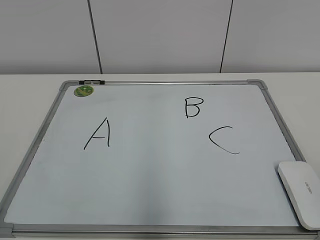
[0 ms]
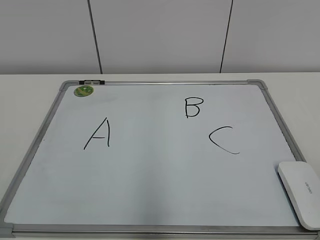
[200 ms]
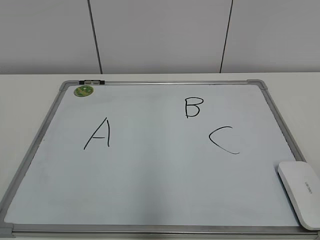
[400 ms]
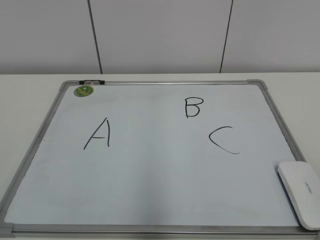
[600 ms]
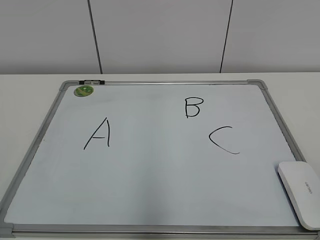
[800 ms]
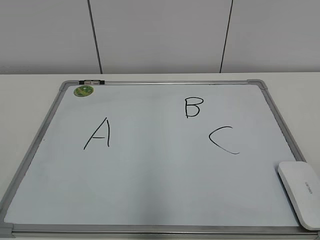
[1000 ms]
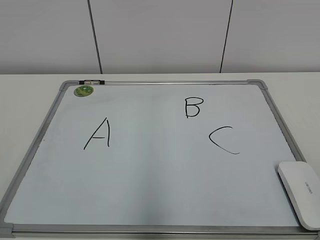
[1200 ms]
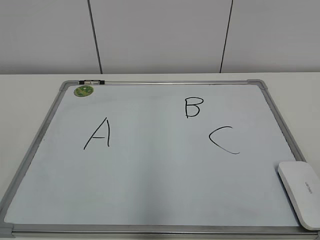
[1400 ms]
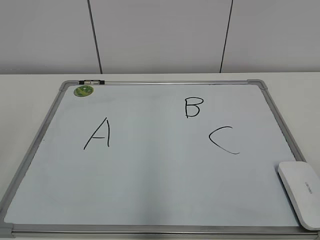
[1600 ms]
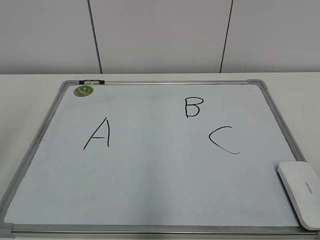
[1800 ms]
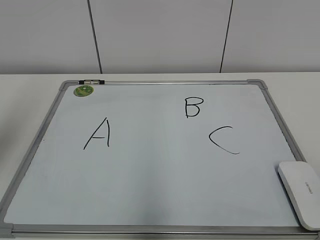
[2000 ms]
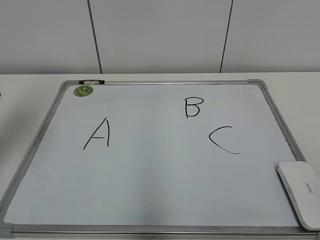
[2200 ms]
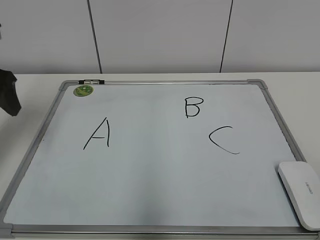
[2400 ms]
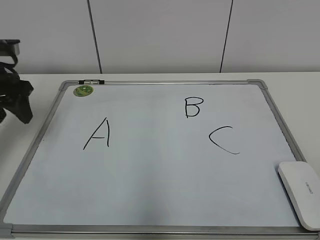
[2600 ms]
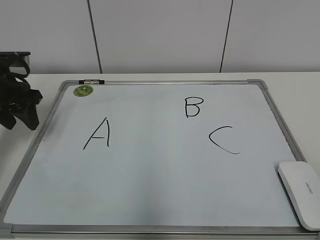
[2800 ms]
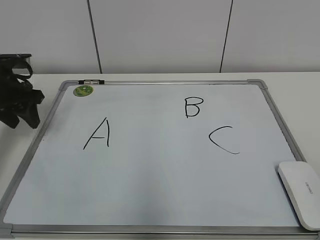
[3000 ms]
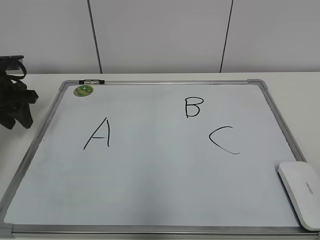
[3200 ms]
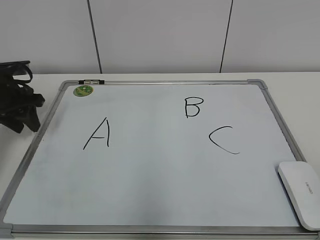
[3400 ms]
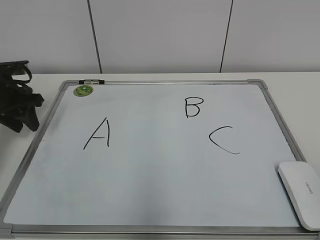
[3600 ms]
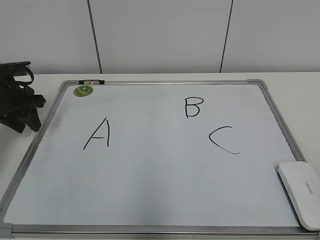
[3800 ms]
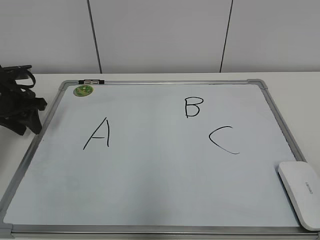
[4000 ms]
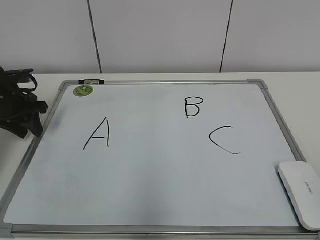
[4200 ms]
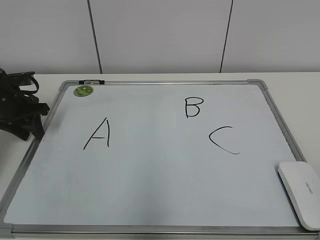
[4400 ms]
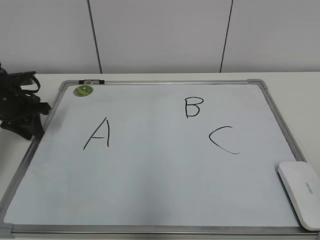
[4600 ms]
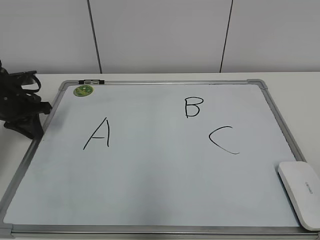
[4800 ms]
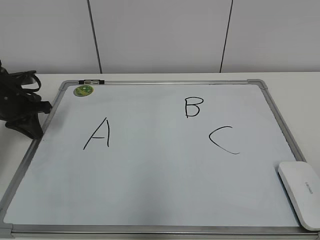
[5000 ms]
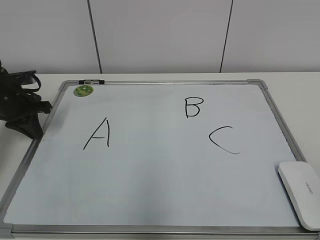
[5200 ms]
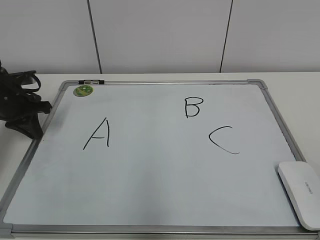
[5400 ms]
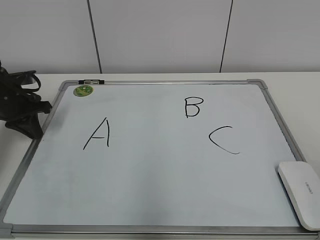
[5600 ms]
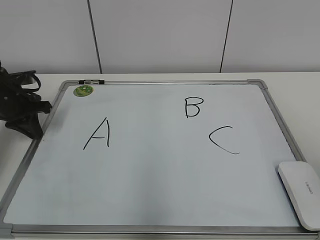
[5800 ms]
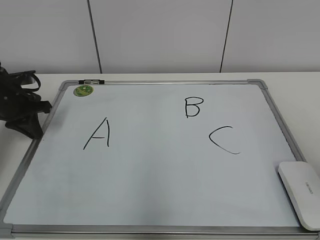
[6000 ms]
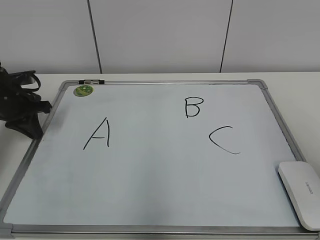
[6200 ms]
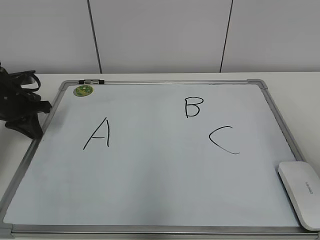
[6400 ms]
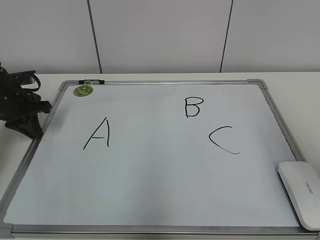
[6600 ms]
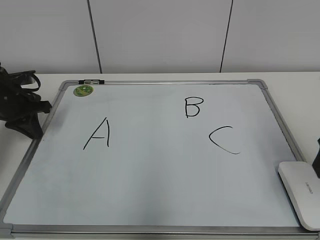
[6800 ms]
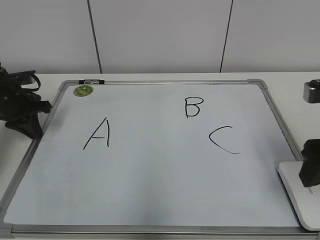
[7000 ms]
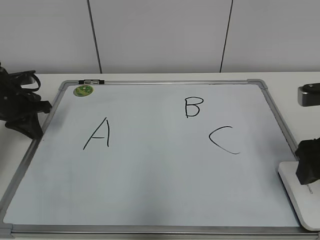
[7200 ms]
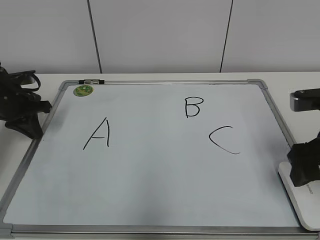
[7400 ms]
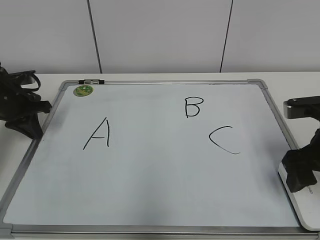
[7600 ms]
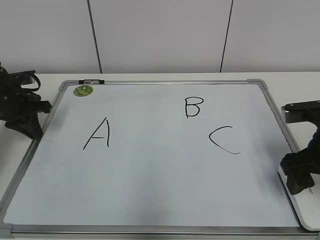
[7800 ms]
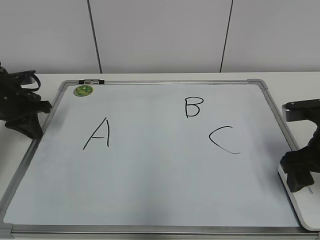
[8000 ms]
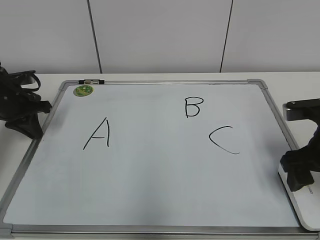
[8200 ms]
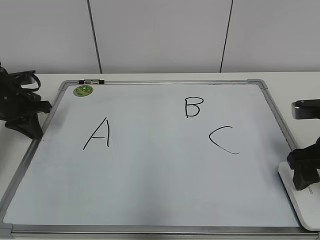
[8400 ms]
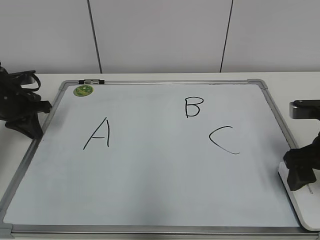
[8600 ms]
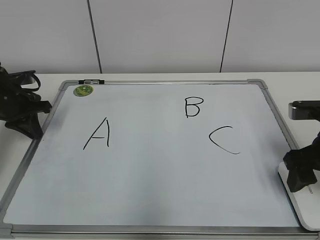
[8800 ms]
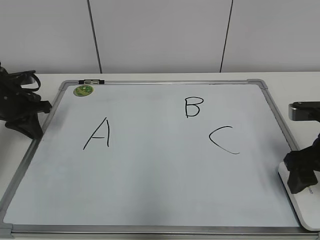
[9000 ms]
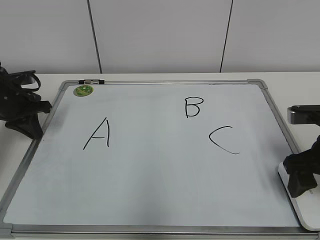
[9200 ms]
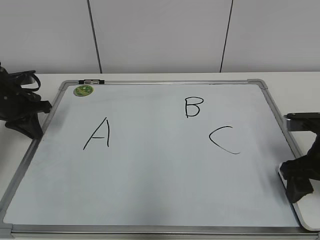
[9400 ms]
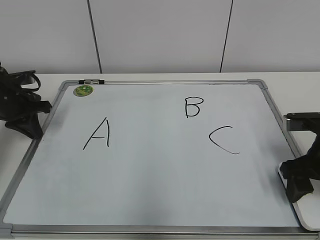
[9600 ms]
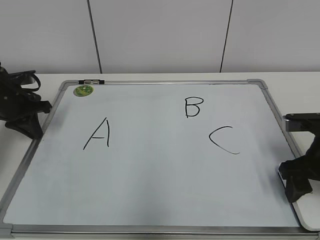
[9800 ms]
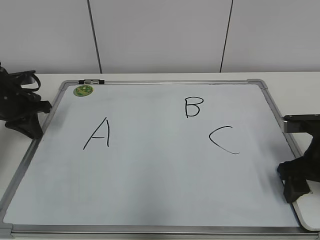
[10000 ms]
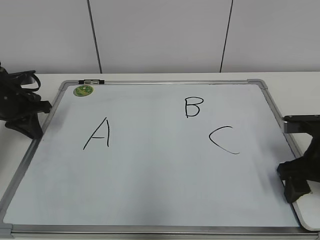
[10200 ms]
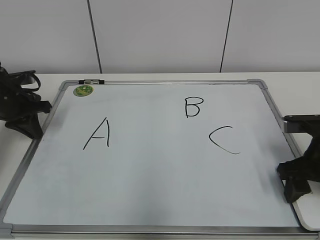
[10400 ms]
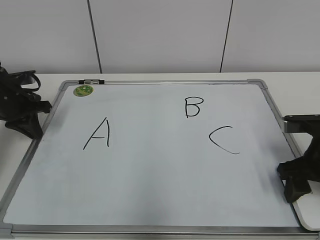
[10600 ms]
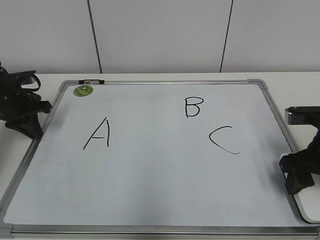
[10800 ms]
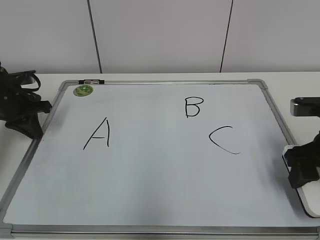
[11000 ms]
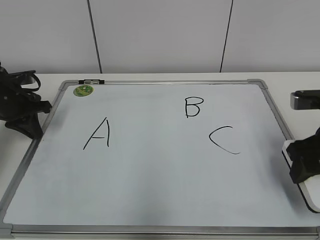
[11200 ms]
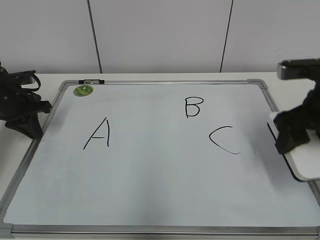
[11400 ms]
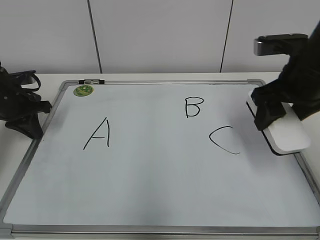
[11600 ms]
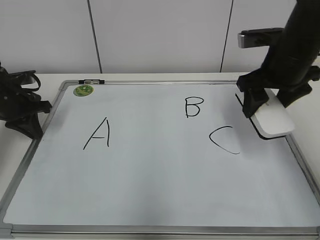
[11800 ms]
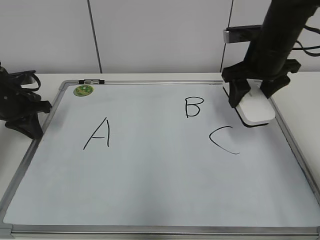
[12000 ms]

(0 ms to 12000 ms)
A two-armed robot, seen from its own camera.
Task of the whole recording: pick up the eraser on the blackboard and erase the letter "B".
Step, 0 ms - 5600 ms: Hold the drawing board steady with your left hand.
Step, 5800 ms - 10200 ms: Grab the eraser with your right hand.
1600 ms - 3000 ms: The left gripper goes about 35 cm forward and downward, and closes its fingers.
3000 ms - 4400 ms: The left gripper shifts approximately 5 cm downward.
4400 ms - 6000 ms: The left gripper closes its fingers.
6000 ms - 7600 ms: The right gripper goes approximately 20 cm downward and forward, and opens up.
7600 ms - 9000 ms: The grippers stay close to where they were, moving slightly.
9000 ms - 10400 ms: The right gripper closes its fingers.
10400 ms - 12000 ms: The right gripper travels forward, upward and to the left by about 20 cm.

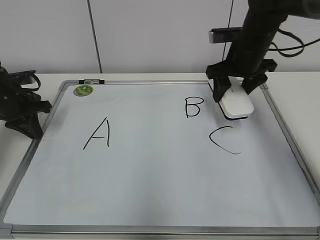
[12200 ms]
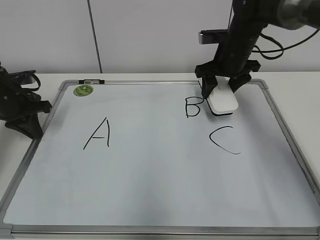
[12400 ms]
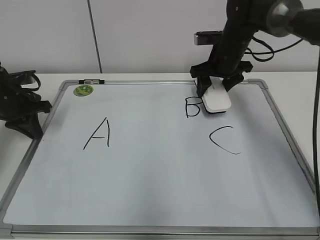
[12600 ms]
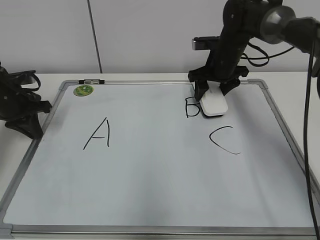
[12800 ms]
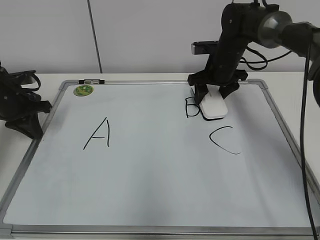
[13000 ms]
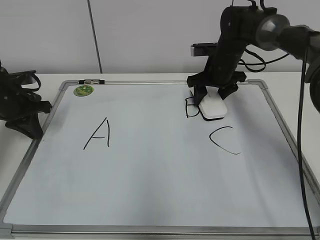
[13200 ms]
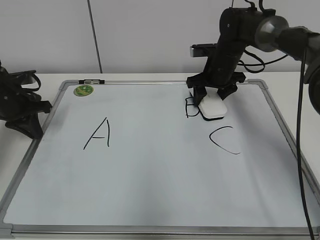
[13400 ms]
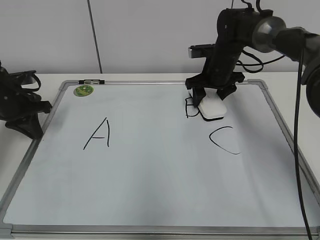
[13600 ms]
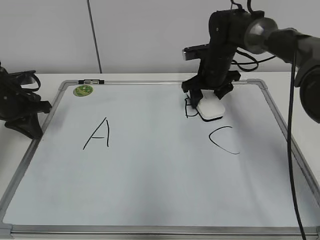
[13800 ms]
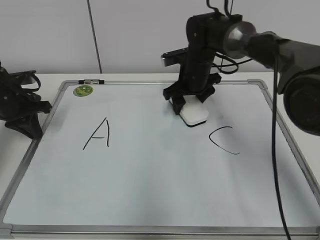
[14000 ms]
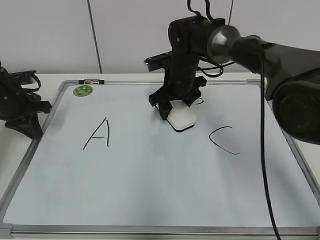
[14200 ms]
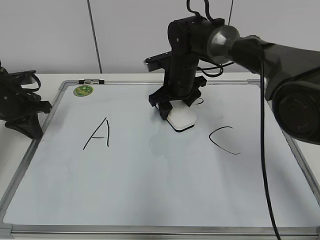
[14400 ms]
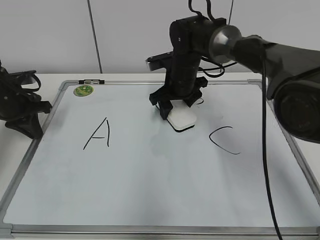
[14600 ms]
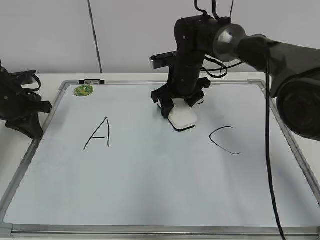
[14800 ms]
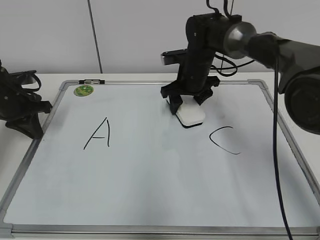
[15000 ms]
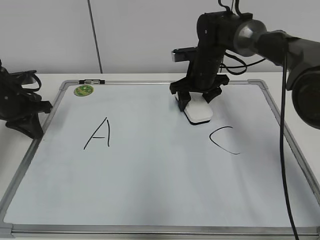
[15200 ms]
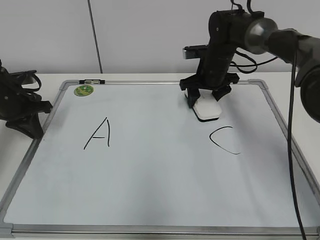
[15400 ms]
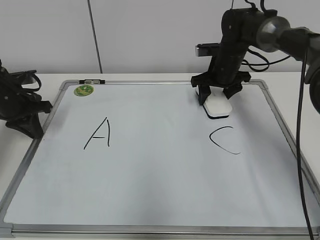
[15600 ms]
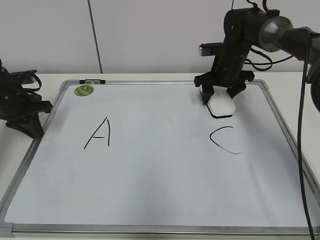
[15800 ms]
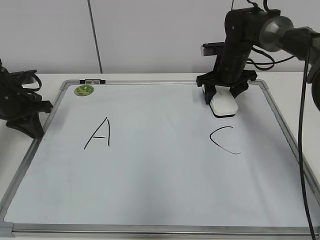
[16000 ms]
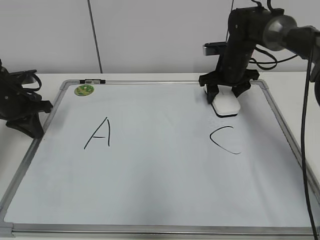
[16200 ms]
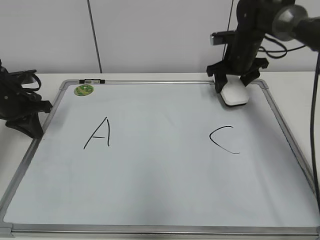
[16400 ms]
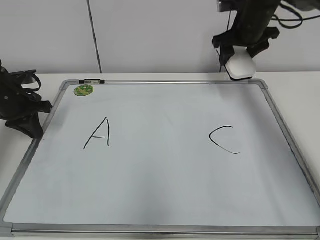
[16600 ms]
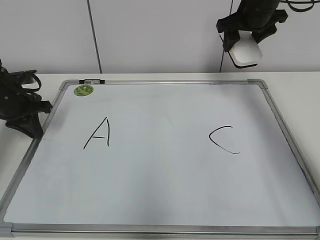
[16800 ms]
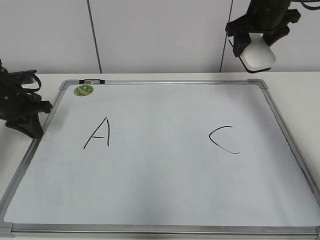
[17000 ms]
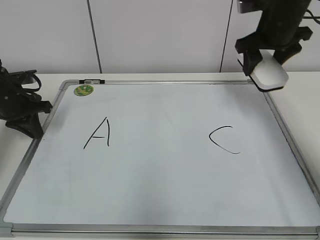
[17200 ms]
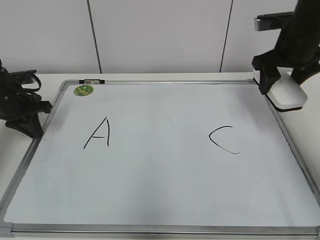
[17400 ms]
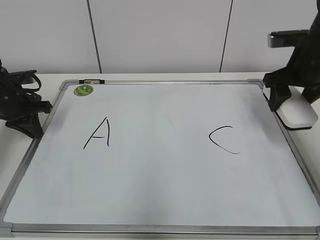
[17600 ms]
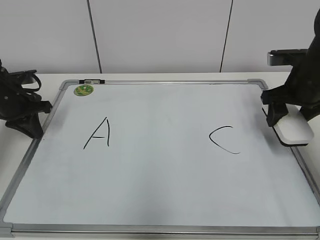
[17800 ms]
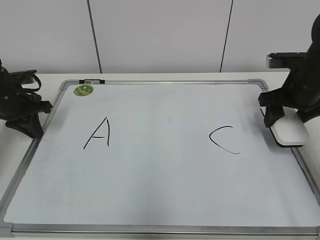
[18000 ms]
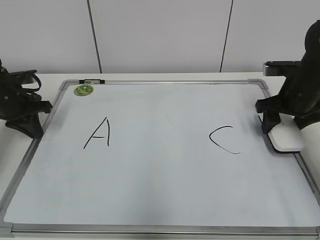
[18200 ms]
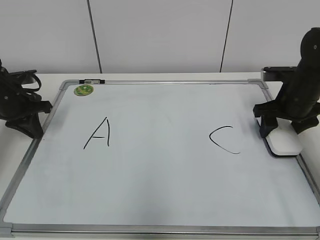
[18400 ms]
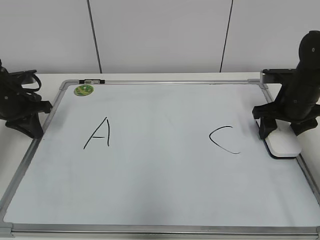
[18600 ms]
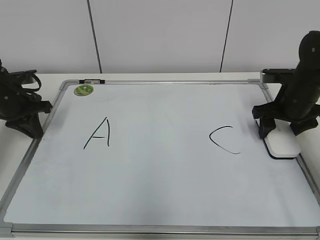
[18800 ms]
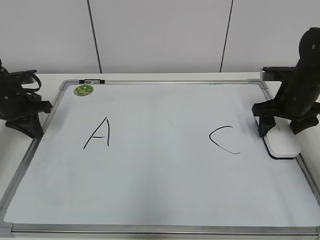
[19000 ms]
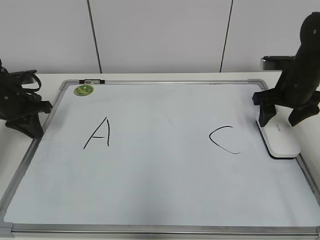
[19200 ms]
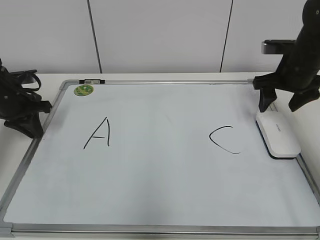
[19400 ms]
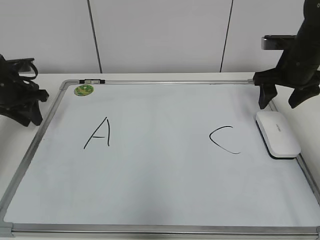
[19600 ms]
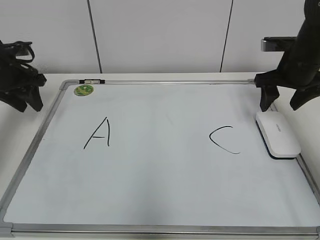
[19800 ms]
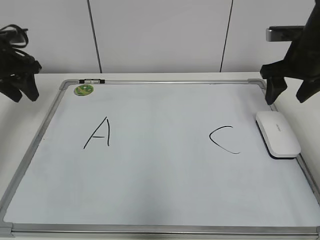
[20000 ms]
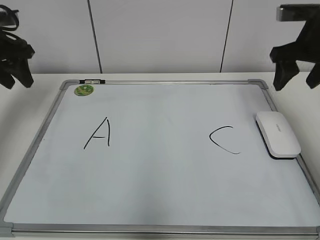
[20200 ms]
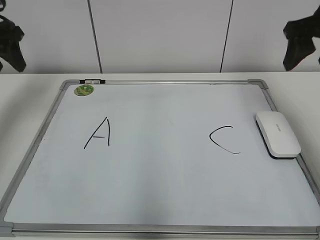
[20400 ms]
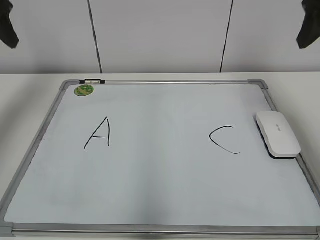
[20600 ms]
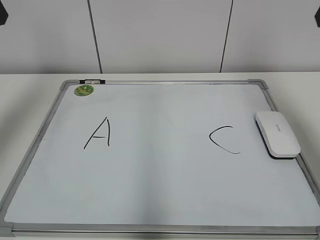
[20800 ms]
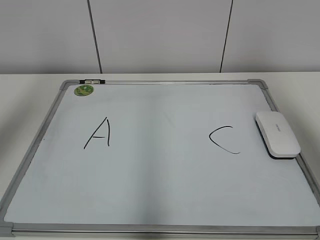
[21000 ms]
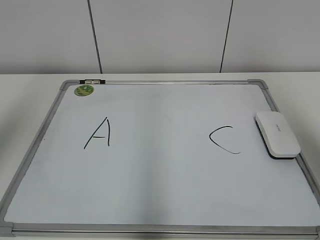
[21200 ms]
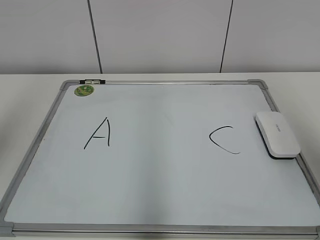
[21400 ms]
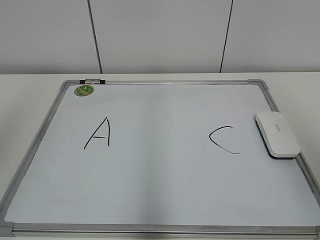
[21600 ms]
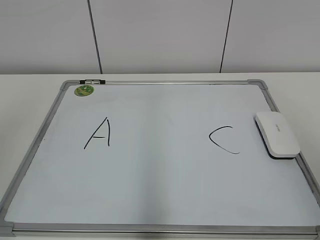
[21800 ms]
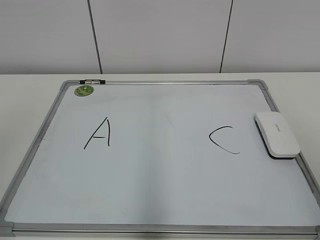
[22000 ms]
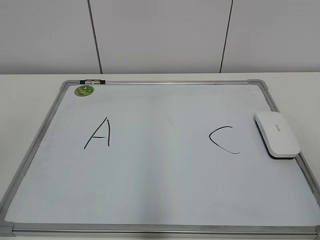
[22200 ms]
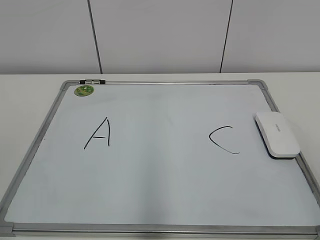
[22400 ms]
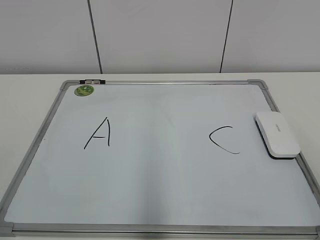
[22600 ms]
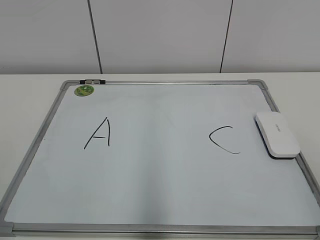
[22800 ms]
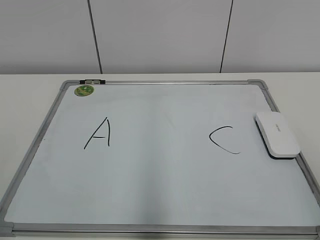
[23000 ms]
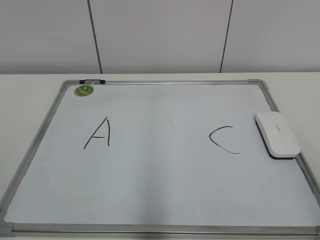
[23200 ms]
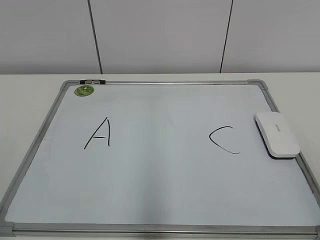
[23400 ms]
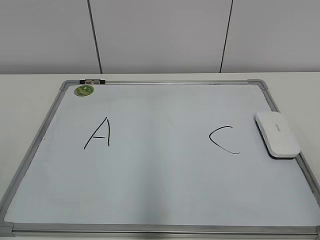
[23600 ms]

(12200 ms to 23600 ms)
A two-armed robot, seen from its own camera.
Task of the whole recording: pick up the eraser on the blackboard and erase the letter "B".
Step, 12200 ms - 16000 ms: Erase the letter B with your right hand.
Step, 16200 ms - 19000 ms: Put down the eraser with your right hand.
12200 ms - 13600 ms: The right gripper goes roughly 10 cm downward and forward.
13600 ms - 15000 ms: The right gripper is displaced to the left by approximately 5 cm.
15000 ms - 16400 ms: The right gripper shifts some 10 cm to the right.
16400 ms - 17800 ms: The right gripper is displaced backward and to the right by approximately 15 cm.
17800 ms - 19400 ms: The right gripper opens.
19400 ms - 20800 ms: The left gripper shifts approximately 25 cm upward, and opens. The right gripper travels upward and backward by approximately 25 cm.
20800 ms - 22200 ms: The two grippers go roughly 30 cm backward.
